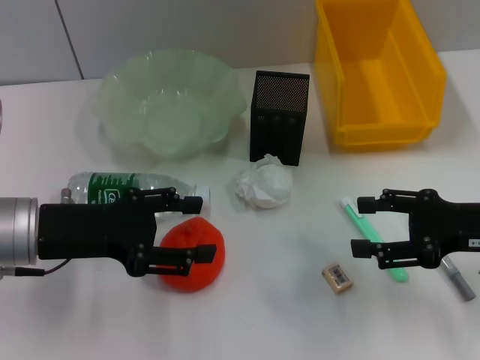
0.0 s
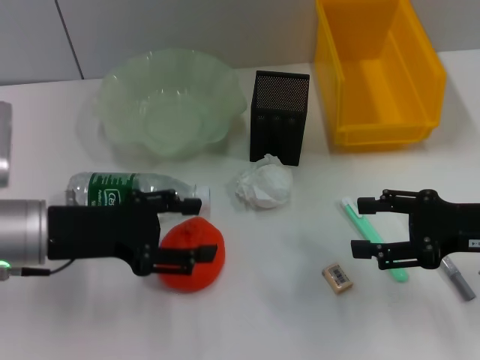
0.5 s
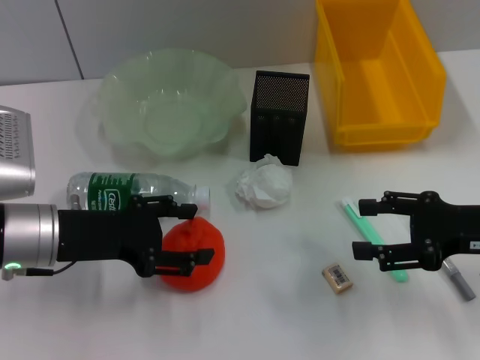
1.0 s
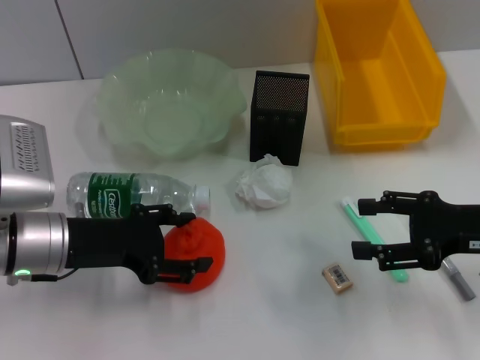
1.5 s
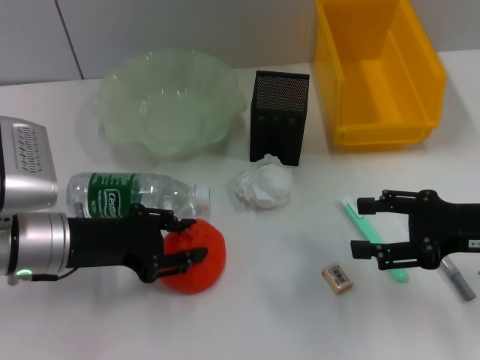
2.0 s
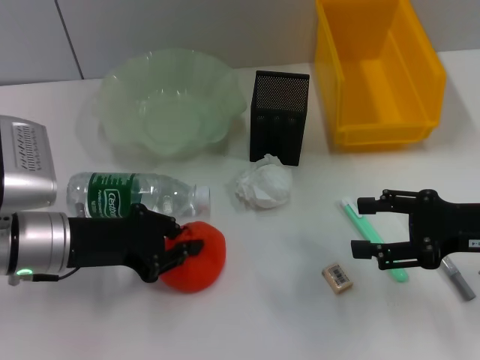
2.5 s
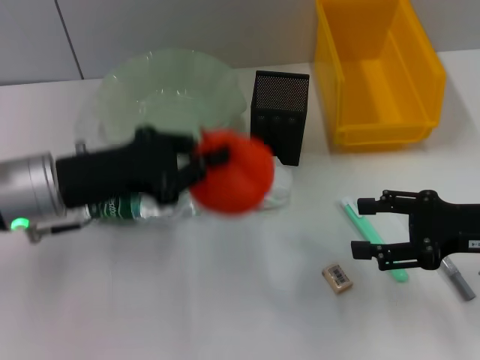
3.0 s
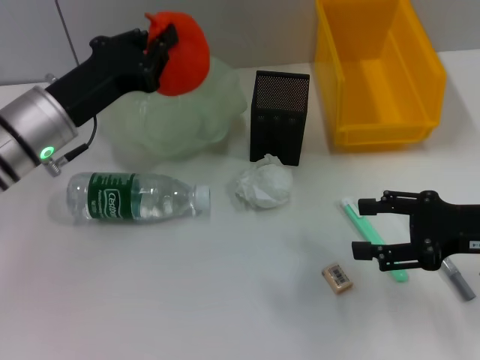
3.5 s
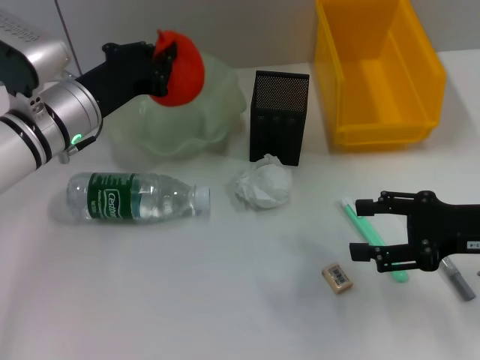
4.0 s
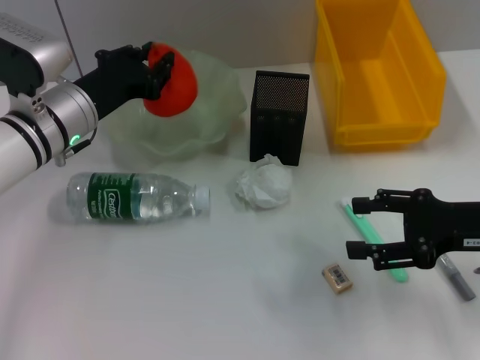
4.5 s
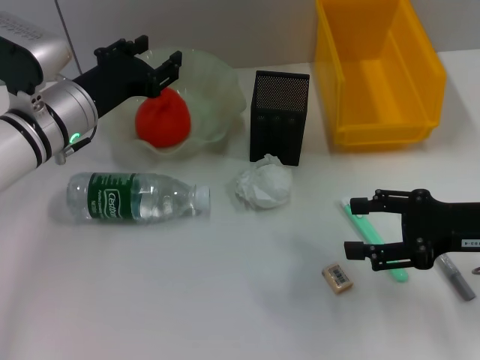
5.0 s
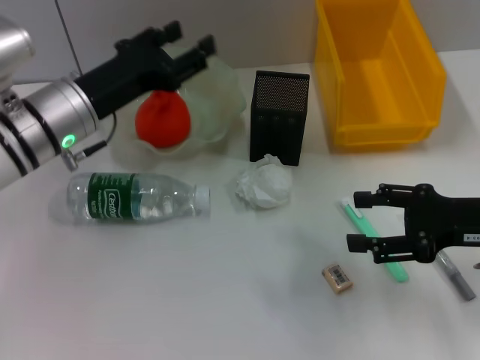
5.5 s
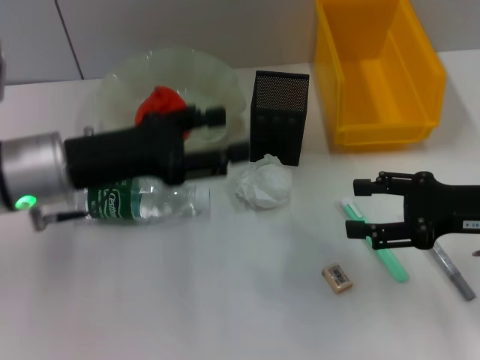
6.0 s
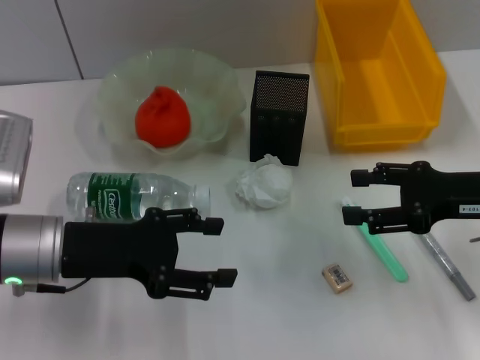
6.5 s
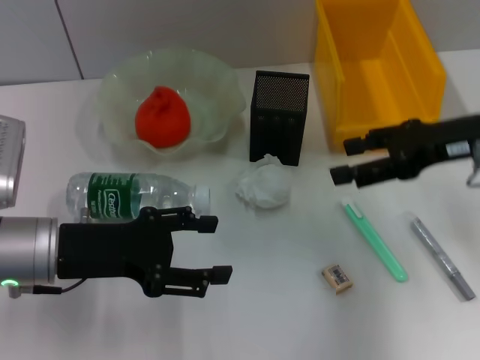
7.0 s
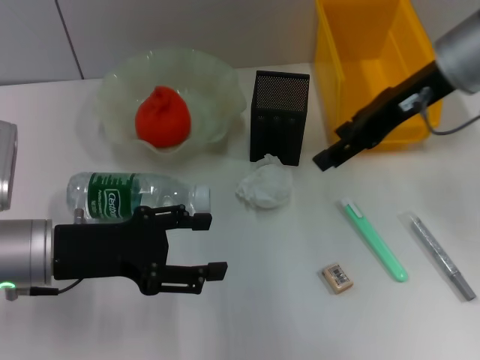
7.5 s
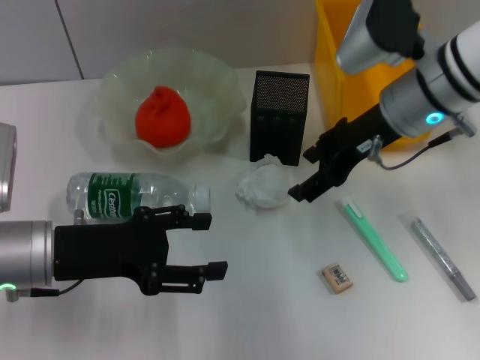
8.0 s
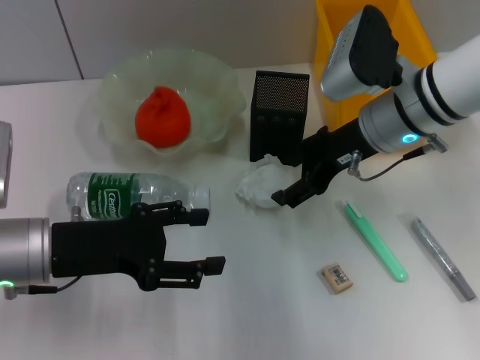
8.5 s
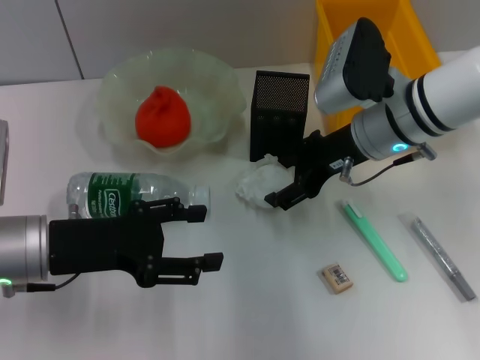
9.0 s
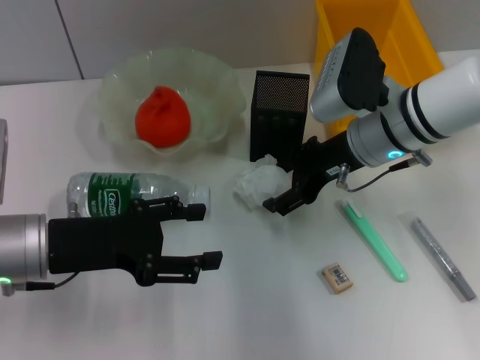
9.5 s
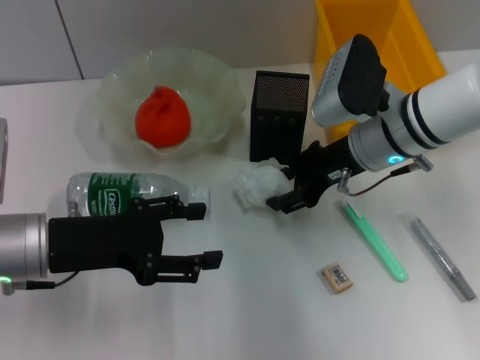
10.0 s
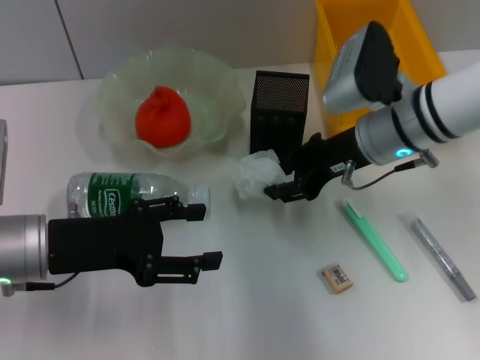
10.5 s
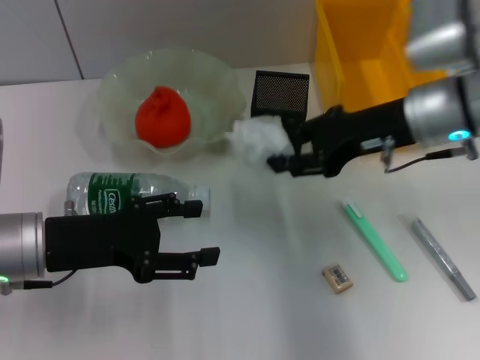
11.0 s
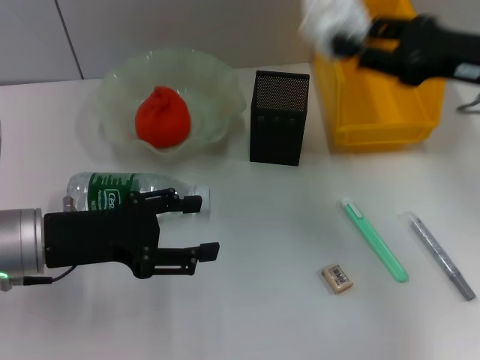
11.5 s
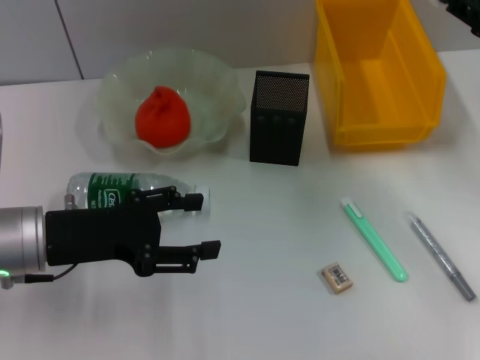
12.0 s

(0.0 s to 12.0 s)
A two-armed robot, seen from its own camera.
Step, 0.0 s - 2.0 s: Grab the orange with the left hand.
Step, 2.5 s - 4.5 s: Place the orange into the fruit bowl with the left hand.
Step, 5.0 s - 10.0 s: Grab the paper ball with the right hand.
0.0 s - 2.0 s: The grippers move only a little.
2.0 s - 4.0 s: The left gripper is displaced forward by approximately 10 cm, and closes.
4.0 s - 6.0 s: The left gripper moves backward, about 5 cm, and opens up.
6.0 s - 8.0 s: The left gripper moves some 5 cm; the right gripper moves to the left, forward and upward, some 15 cm.
8.0 s - 10.0 s: The right gripper shifts some 5 cm downward.
10.0 s - 12.0 s: The right gripper shifts roughly 20 cm to the right, and closes its fingers.

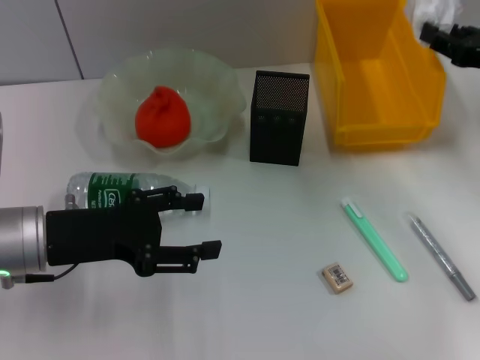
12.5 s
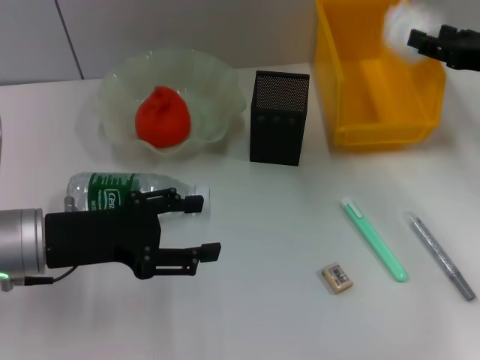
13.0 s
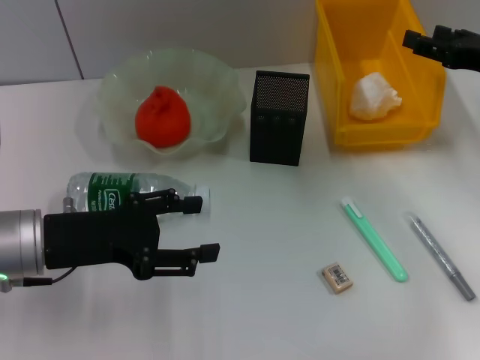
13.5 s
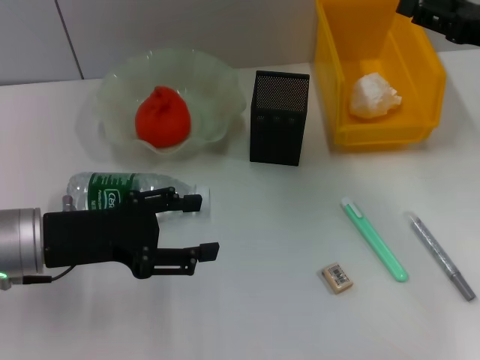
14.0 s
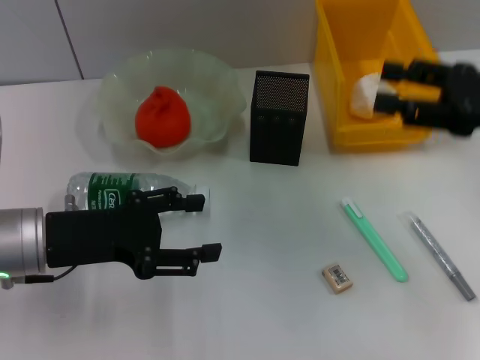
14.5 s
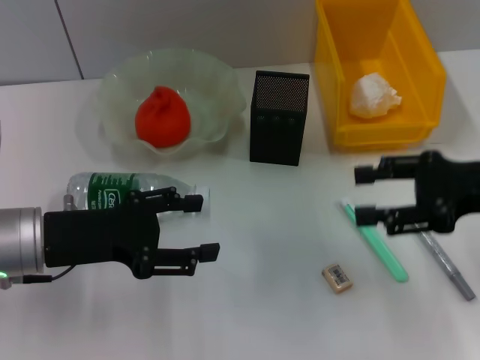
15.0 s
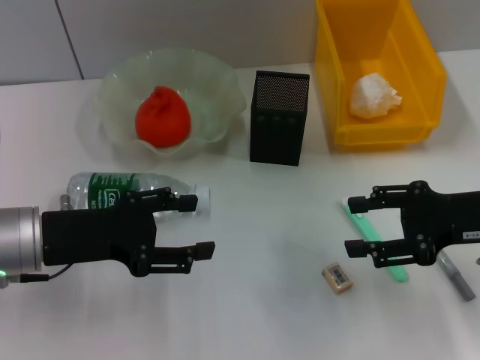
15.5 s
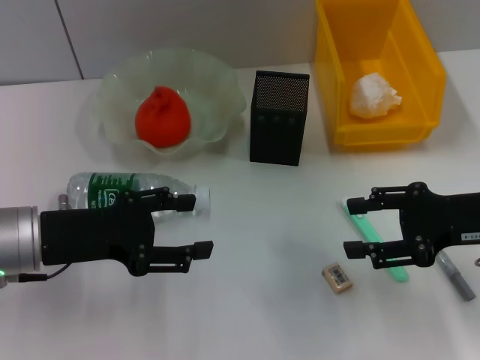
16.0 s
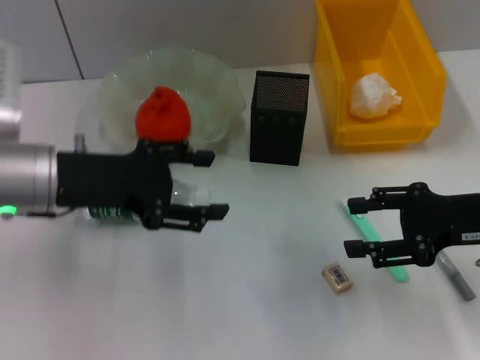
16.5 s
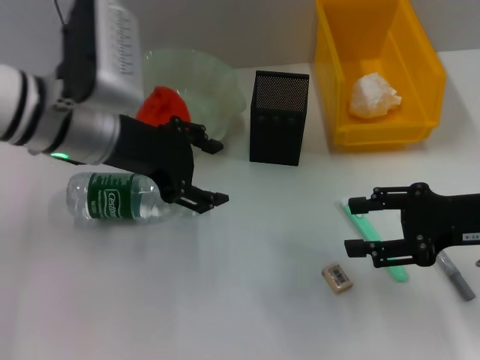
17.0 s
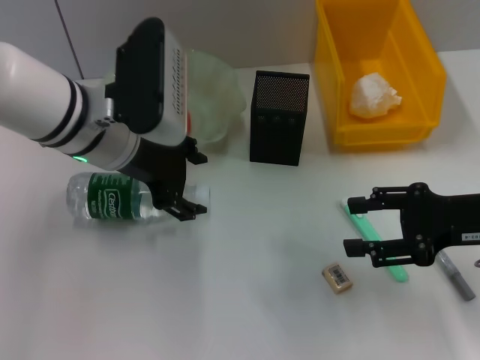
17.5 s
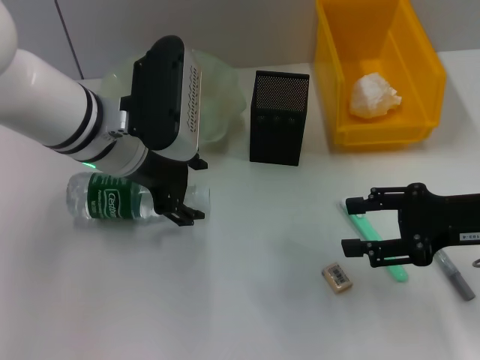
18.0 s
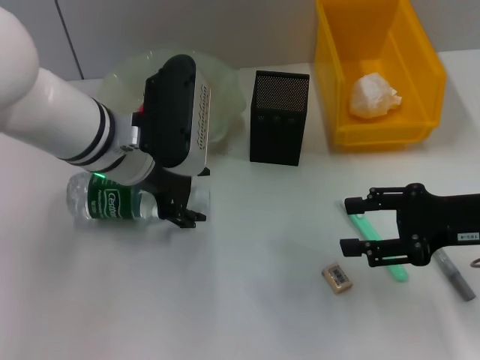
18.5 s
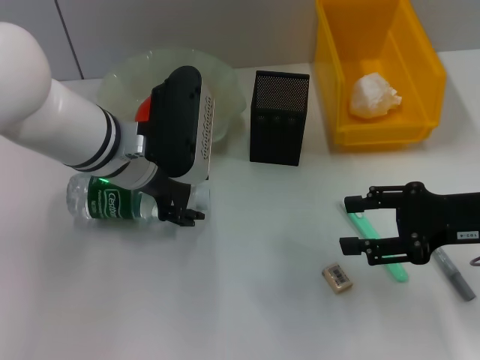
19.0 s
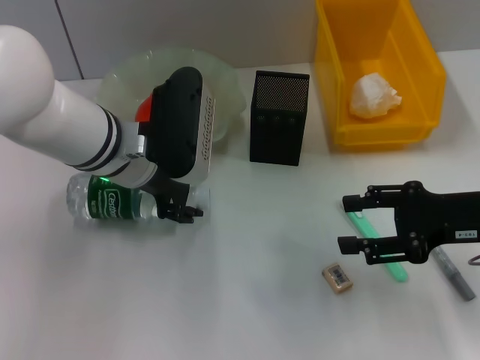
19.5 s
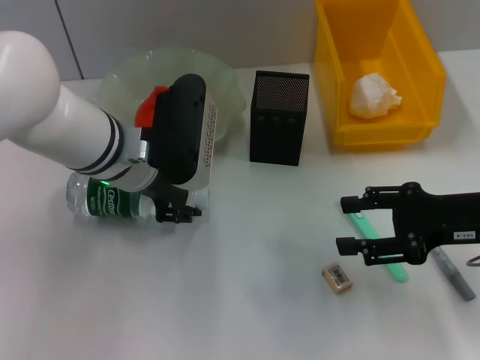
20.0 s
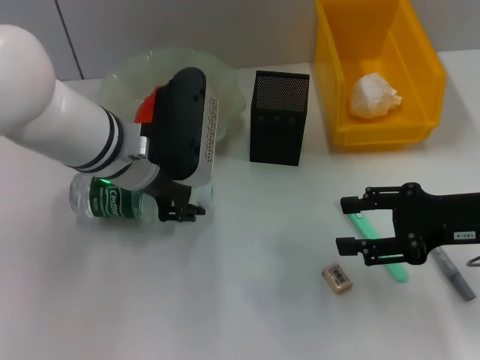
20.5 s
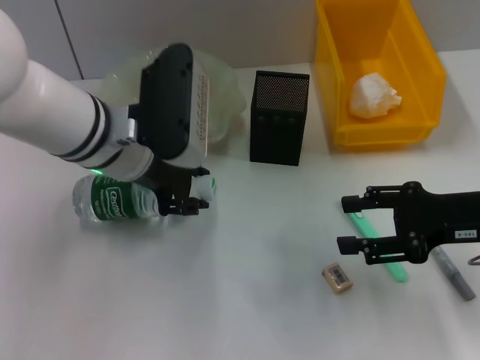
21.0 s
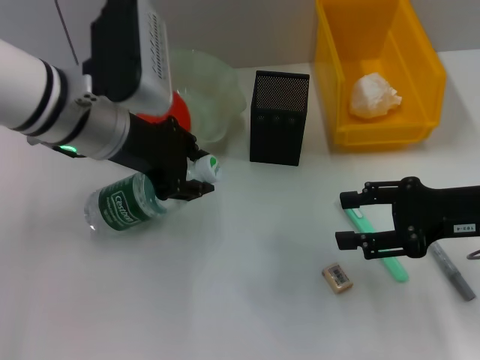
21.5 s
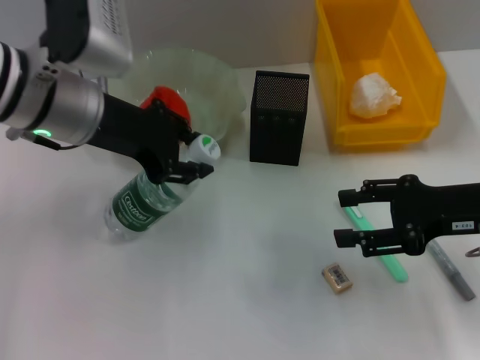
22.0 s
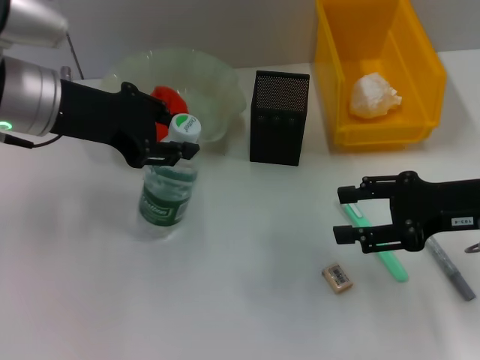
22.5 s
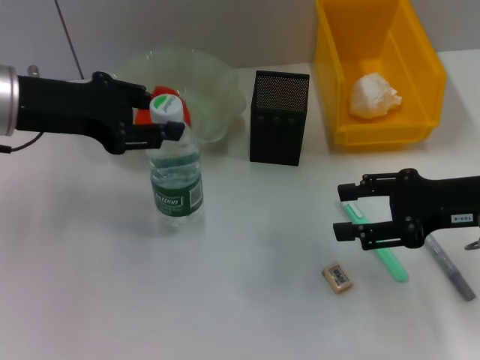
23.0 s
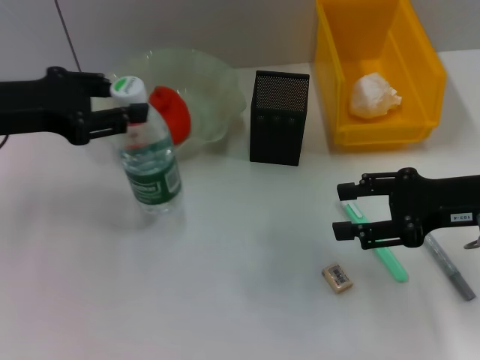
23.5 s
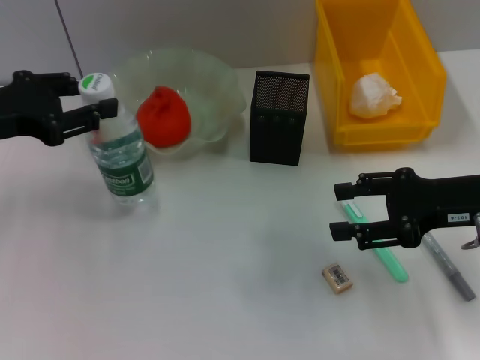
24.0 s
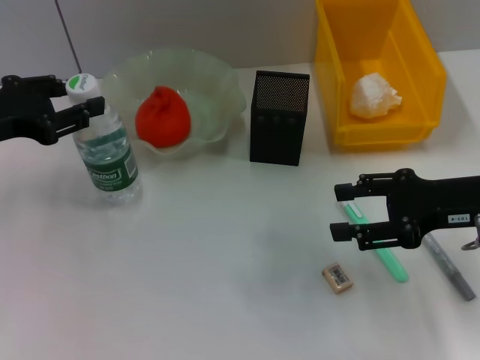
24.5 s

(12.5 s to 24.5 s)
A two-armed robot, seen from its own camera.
Step, 13.5 s - 20.0 s: Grab the water bottle with the left hand.
12.5 s - 14.5 s: The right gripper goes roughly 5 cm backward, and opens.
14.5 s - 16.5 s: The right gripper moves downward, some 5 cm; the left gripper changes place by some 5 cm.
16.5 s - 18.5 s: The left gripper is displaced to the right by about 10 cm.
18.5 s - 20.5 s: The two grippers keep their place.
20.5 s - 22.5 s: The left gripper heads to the left and upward, covering approximately 10 cm.
22.5 s - 24.5 s: The left gripper heads to the left, covering some 10 cm.

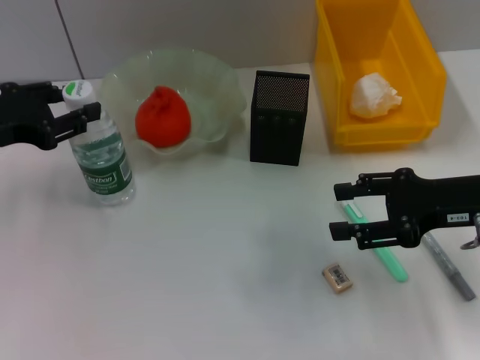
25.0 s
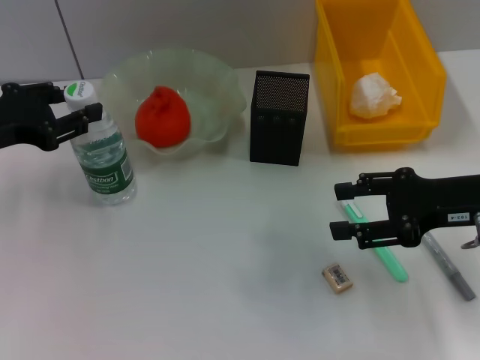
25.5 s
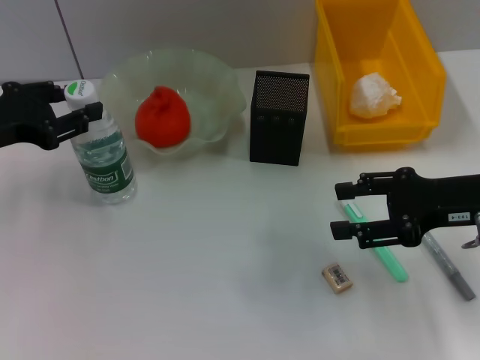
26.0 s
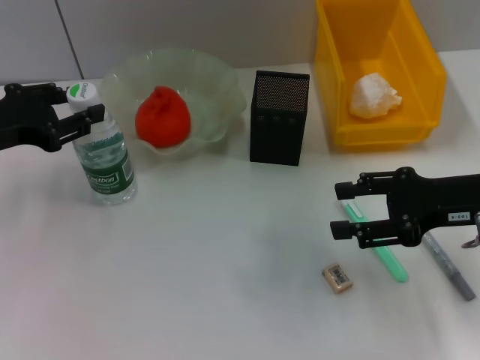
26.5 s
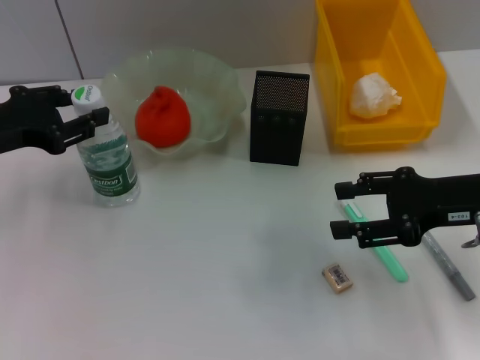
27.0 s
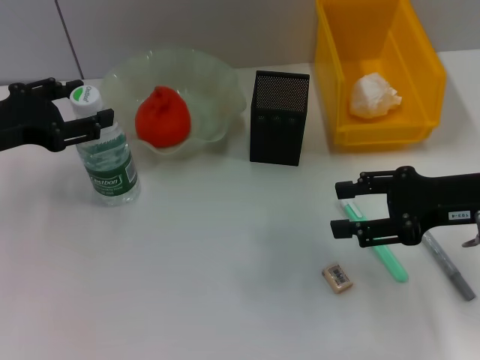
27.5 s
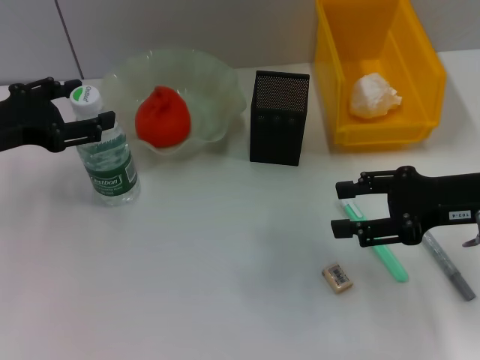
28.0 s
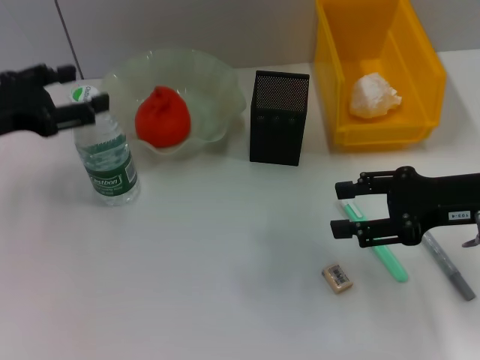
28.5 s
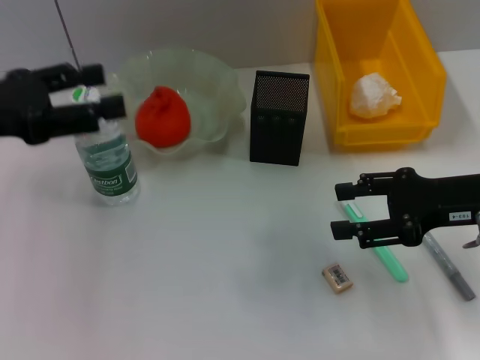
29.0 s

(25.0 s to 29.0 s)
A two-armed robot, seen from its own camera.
Step, 25.0 s - 27.5 s: Place the water bottle on the table with the left hand.
25.0 s - 27.0 s: Both grippers stay put.
27.0 s - 29.0 s: The left gripper moves about 5 cm, and opens its fingers.
